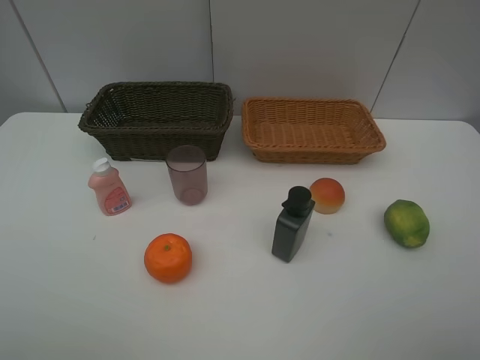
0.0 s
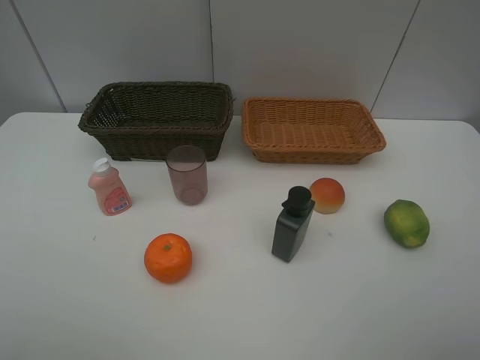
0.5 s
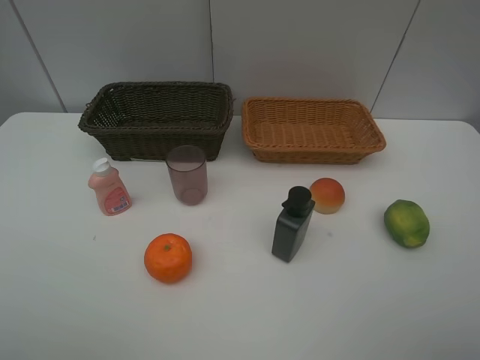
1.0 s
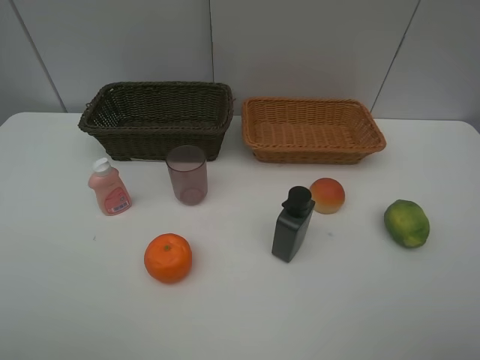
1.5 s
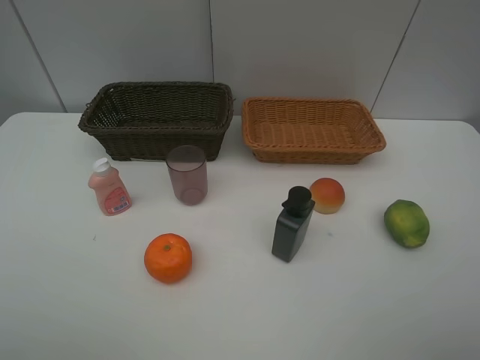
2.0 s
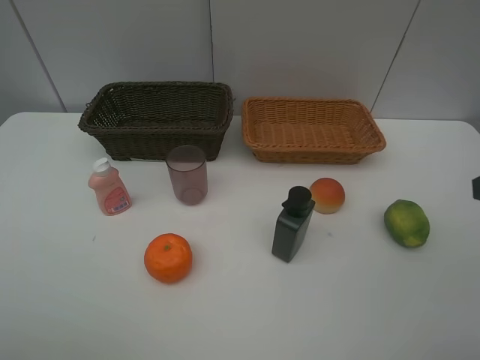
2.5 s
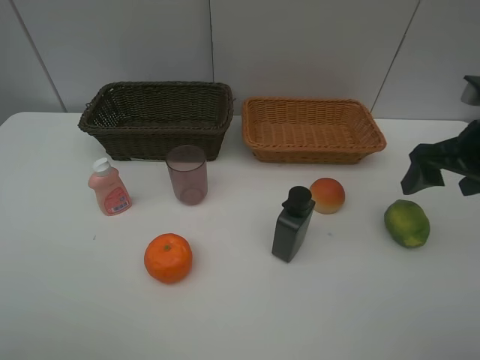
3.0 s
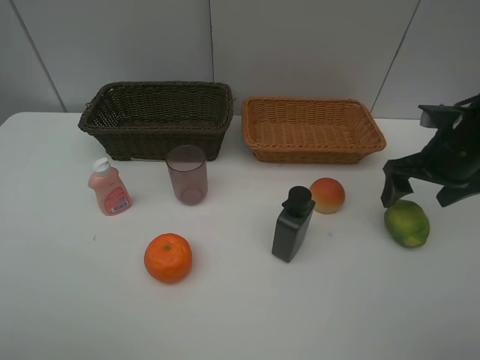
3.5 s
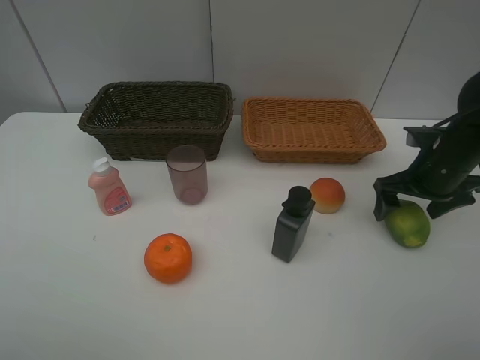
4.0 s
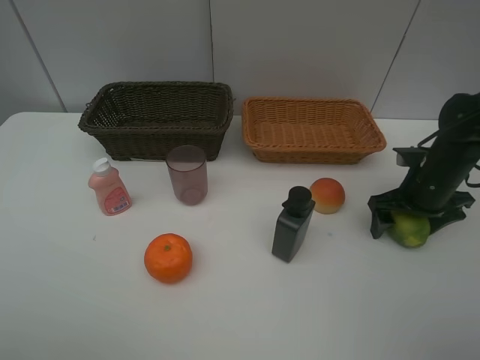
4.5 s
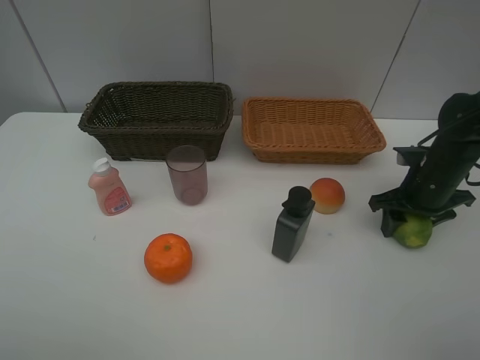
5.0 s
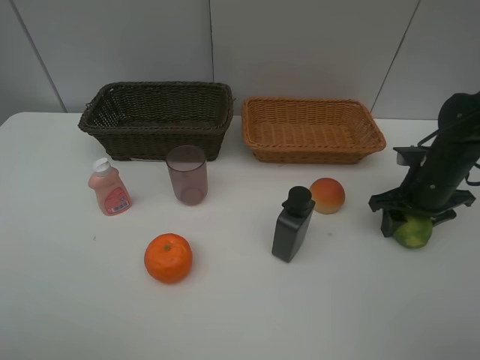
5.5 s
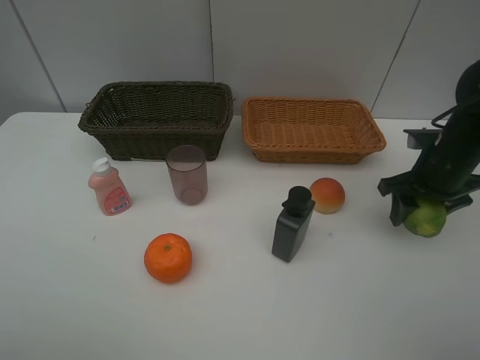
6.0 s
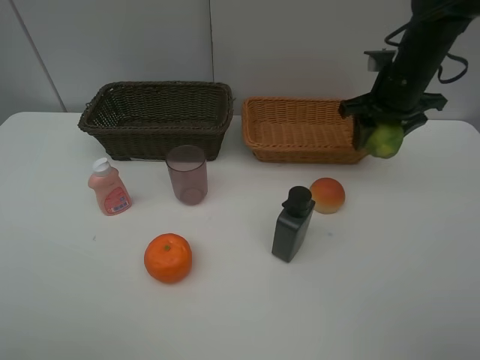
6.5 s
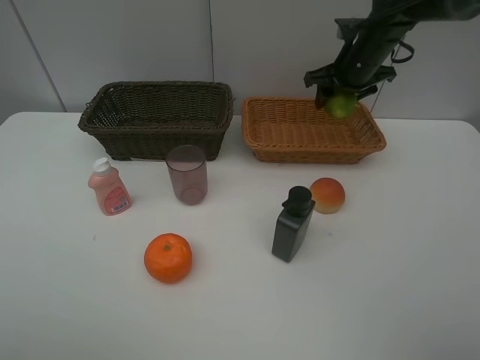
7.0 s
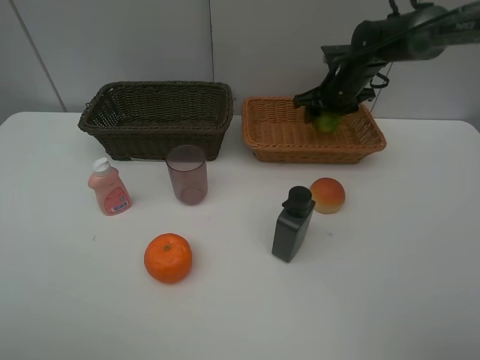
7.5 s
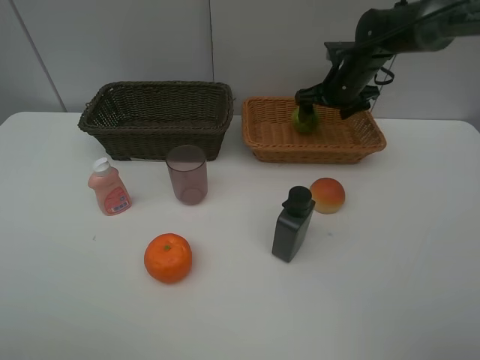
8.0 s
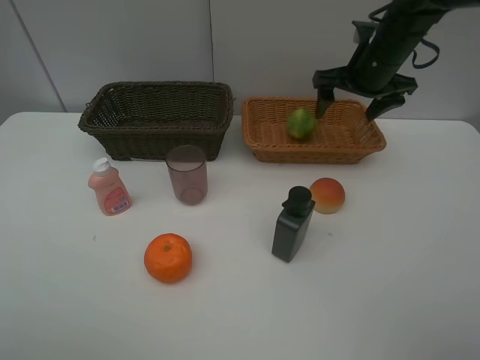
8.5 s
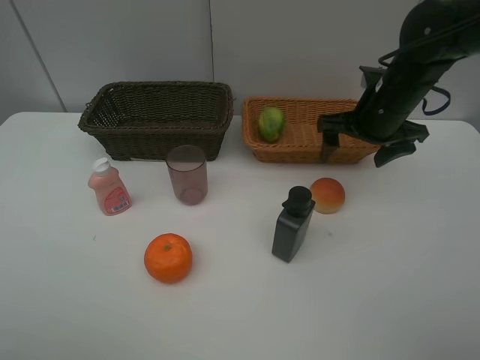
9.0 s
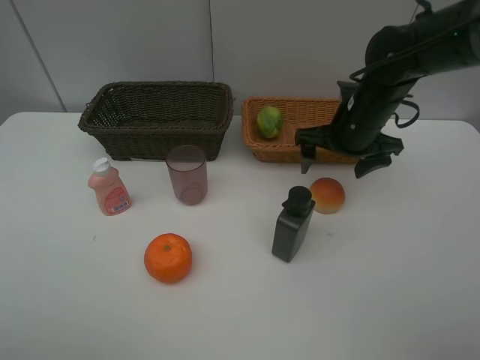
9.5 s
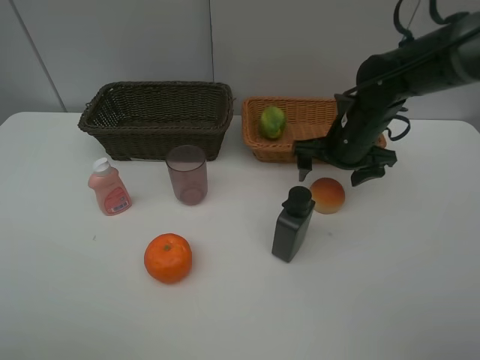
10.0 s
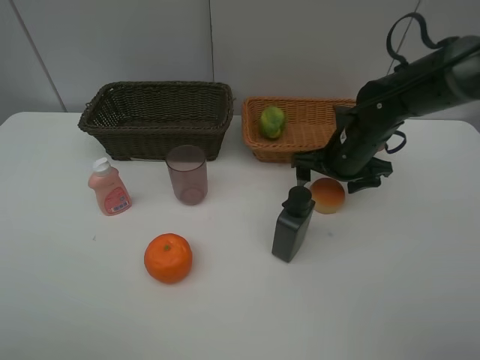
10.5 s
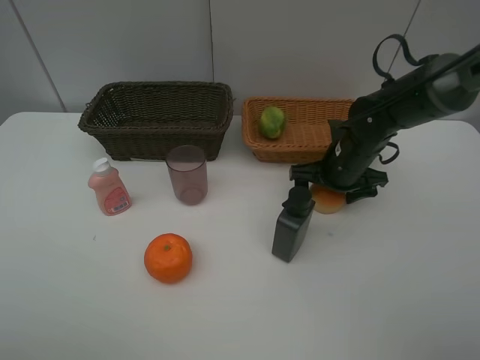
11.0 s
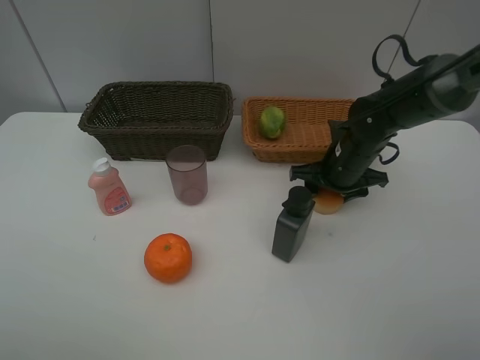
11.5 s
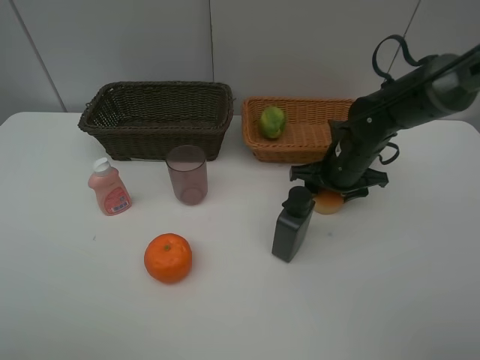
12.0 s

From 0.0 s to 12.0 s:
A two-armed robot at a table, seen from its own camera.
Task of the whole recording: place multiple objects separately in different baskets.
From 0.0 s to 2.0 s: Both grippers stay put.
From 2.0 s to 4.0 s: The right gripper heads forward and downward, covering approximately 35 cm.
From 4.0 s to 6.0 s: The right gripper closes its fingers.
From 6.0 s to 8.0 s: The right gripper heads forward and to the left, covering approximately 20 cm, and opens its fingers.
From 8.0 s to 10.0 s: The right gripper goes roughly 15 cm backward.
From 10.0 s to 12.0 s: The right gripper closes its fingers.

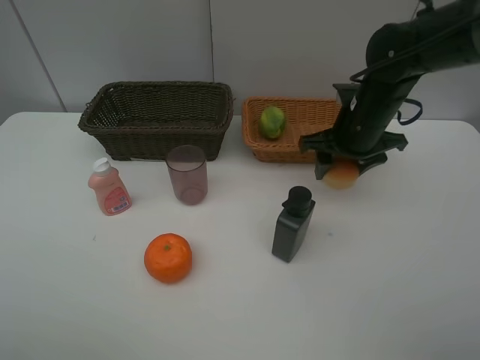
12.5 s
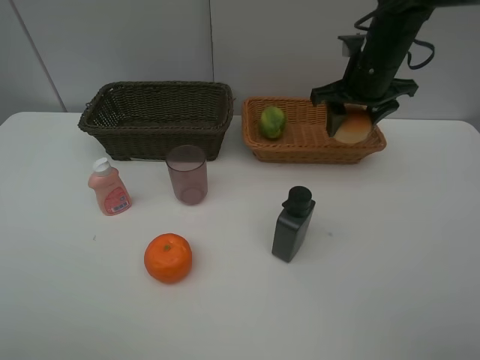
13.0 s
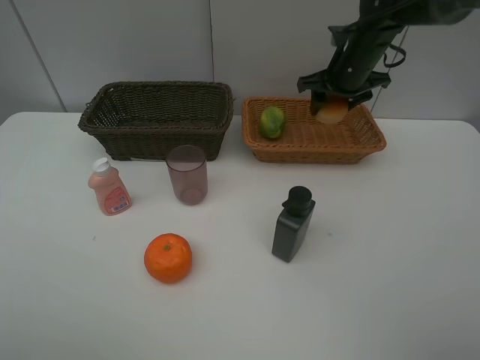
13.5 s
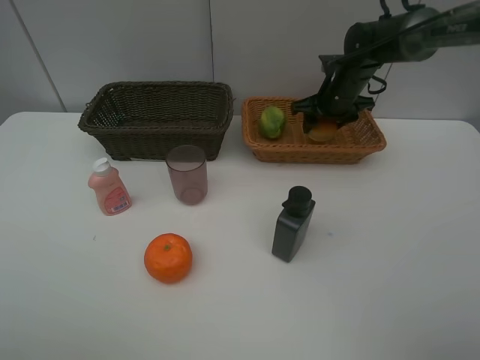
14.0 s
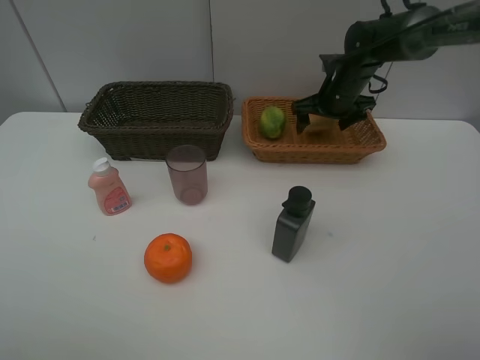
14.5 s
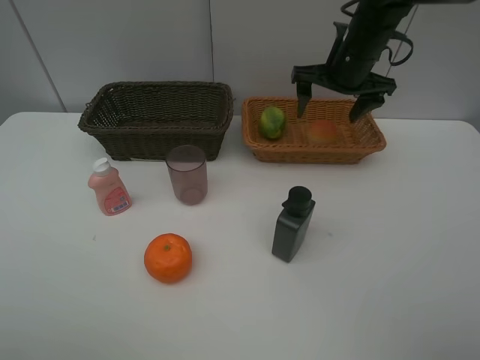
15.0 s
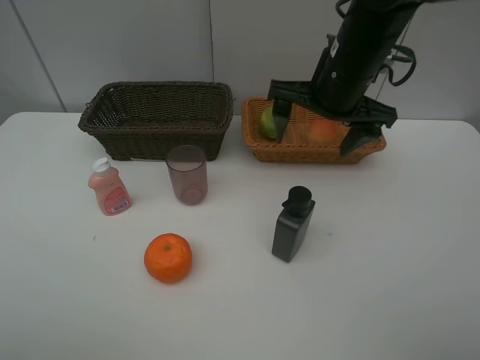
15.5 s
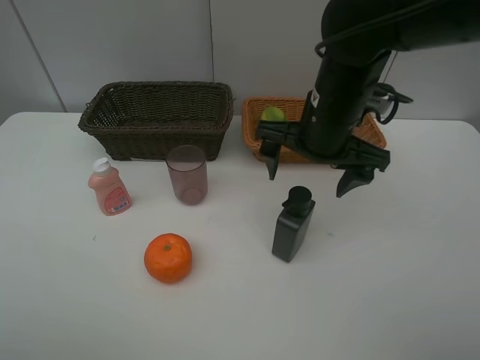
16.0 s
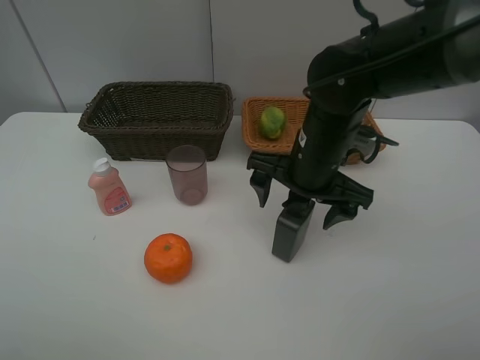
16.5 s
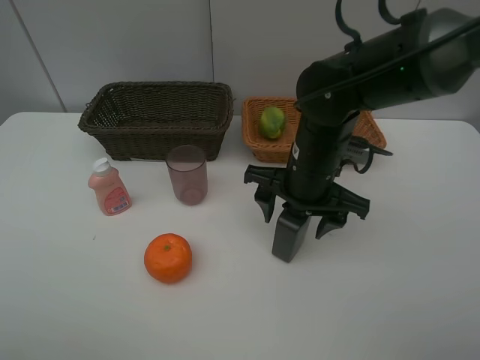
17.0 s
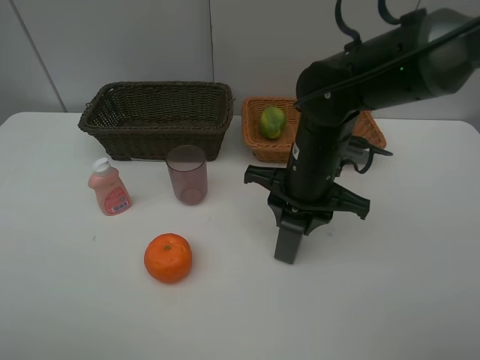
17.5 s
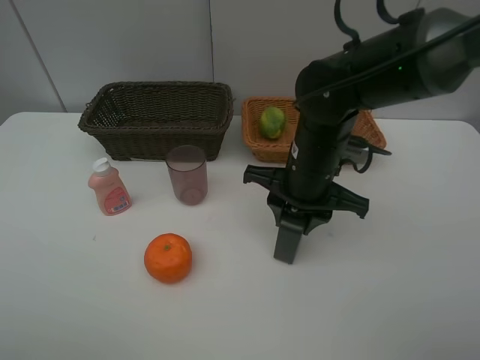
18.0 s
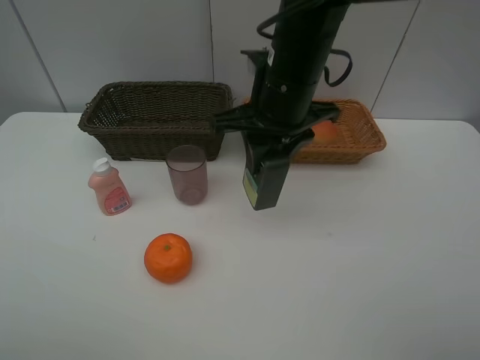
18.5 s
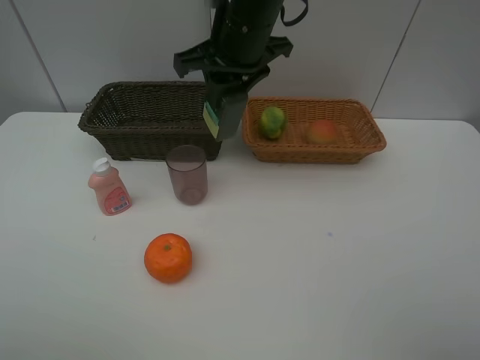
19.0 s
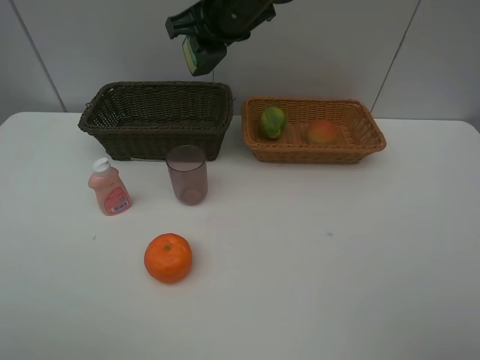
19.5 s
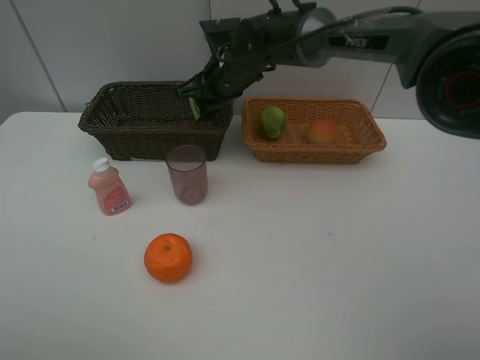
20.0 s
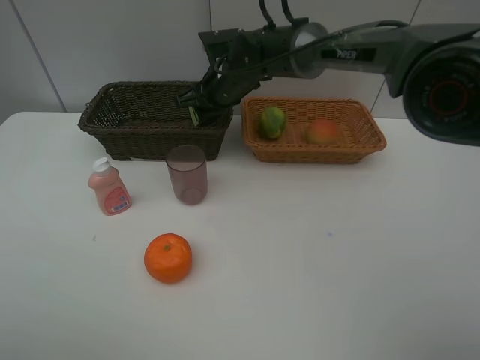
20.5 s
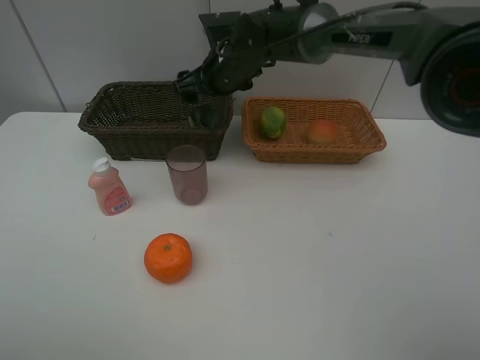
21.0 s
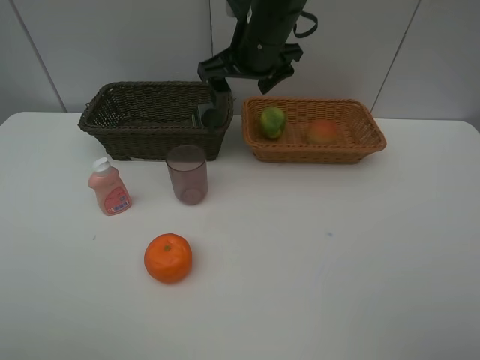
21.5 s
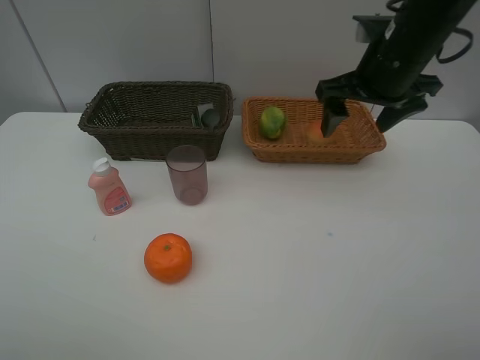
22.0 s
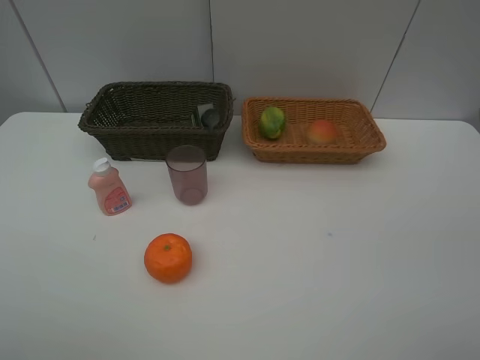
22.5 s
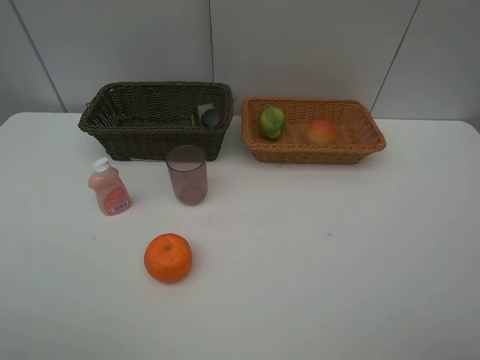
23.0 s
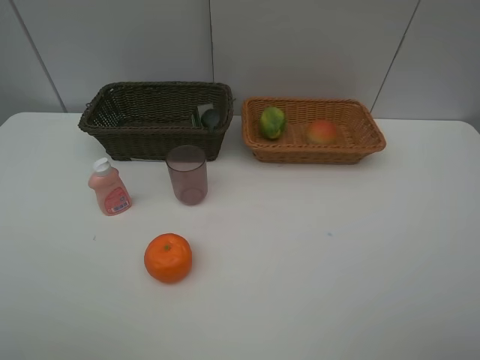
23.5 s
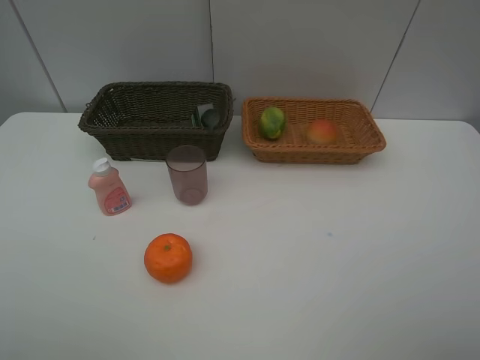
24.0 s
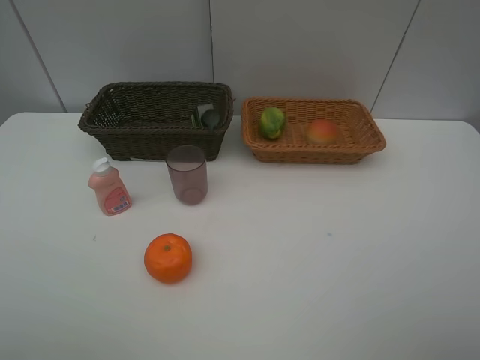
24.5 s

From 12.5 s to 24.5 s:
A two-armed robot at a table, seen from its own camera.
Task of the whole recording: place multiple objects separately in different baskets.
From 12.5 s to 14.5 s: The right gripper is displaced forward by approximately 15 cm, and opens.
From 14.5 s to 16.5 s: The right gripper travels backward and to the left by approximately 25 cm.
From 16.5 s to 18.5 s: The right gripper moves upward, about 10 cm, and closes up.
From 18.5 s to 20.5 s: The right gripper heads forward, downward and to the left, covering about 20 cm.
From 20.5 s to 22.5 s: The right gripper moves to the right, backward and upward, roughly 50 cm, and opens up.

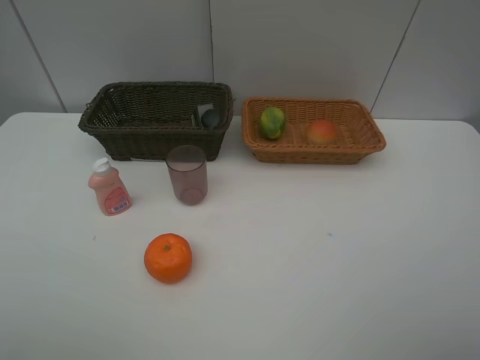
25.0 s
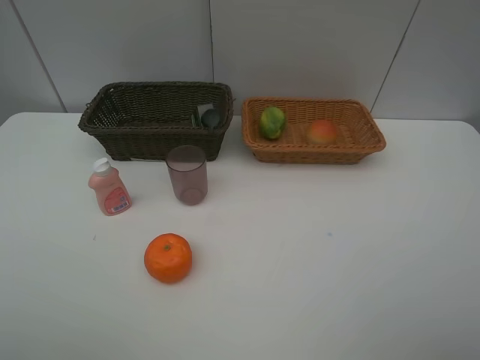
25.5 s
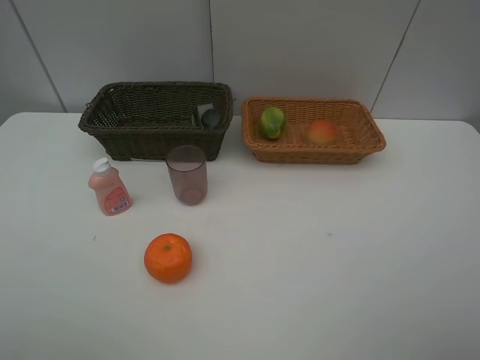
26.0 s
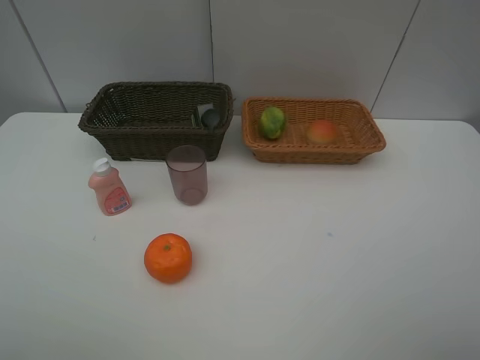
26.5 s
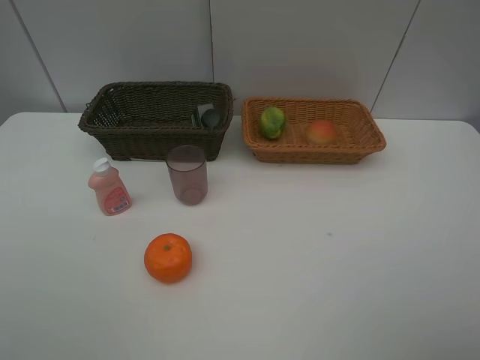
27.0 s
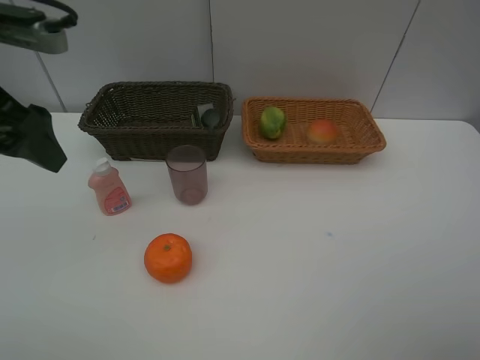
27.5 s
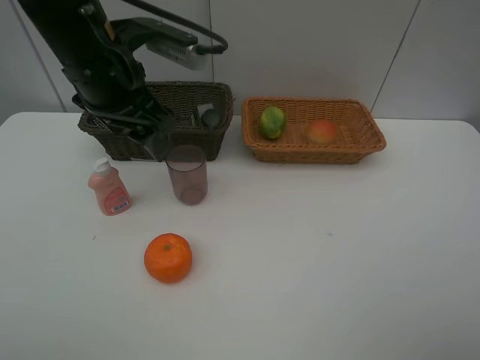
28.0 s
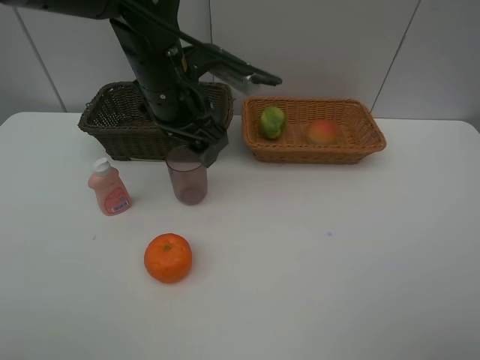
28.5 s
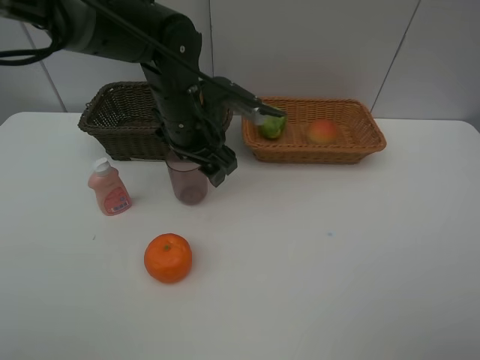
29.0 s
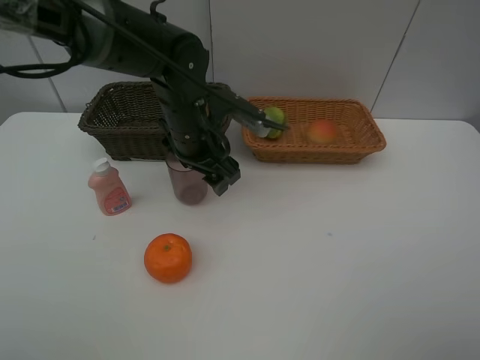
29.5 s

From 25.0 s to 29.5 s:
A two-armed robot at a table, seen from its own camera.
Task of the whole recording: place multiple objects separately in different baskets.
From 27.0 s to 29.5 s: The left gripper moves forward, to the right and downward, roughly 40 cm.
